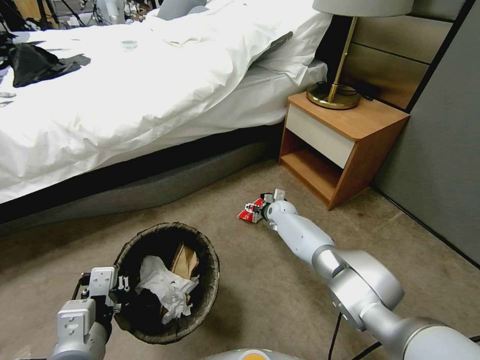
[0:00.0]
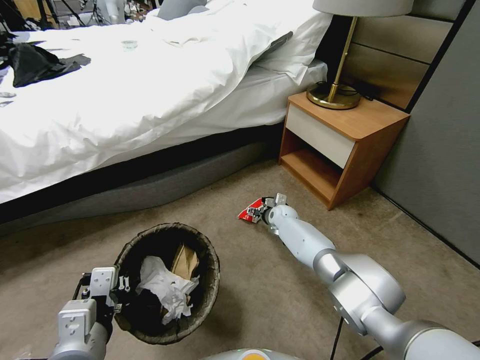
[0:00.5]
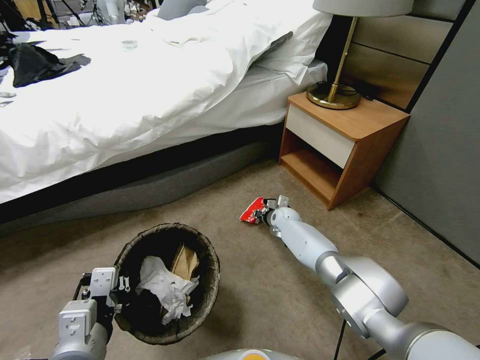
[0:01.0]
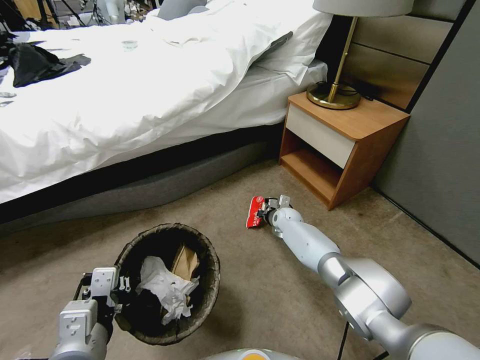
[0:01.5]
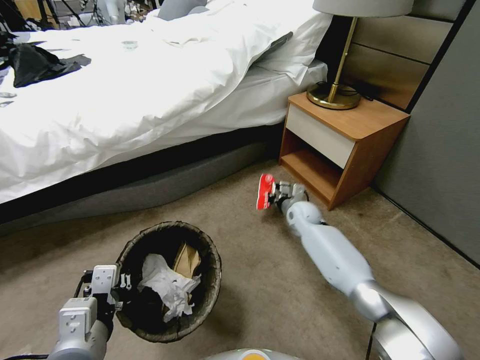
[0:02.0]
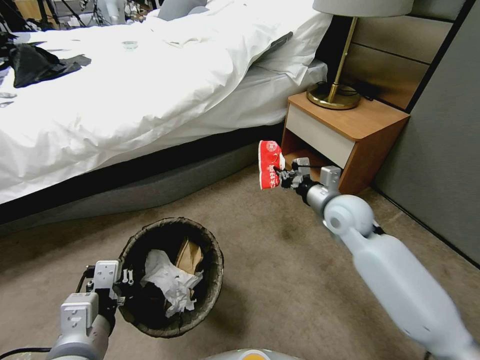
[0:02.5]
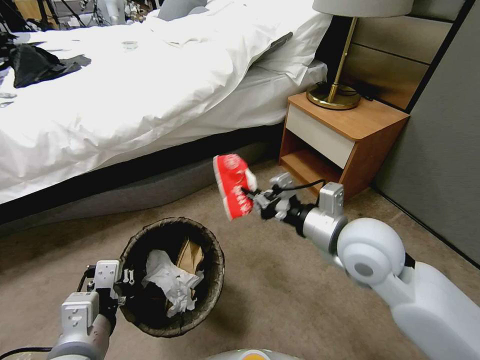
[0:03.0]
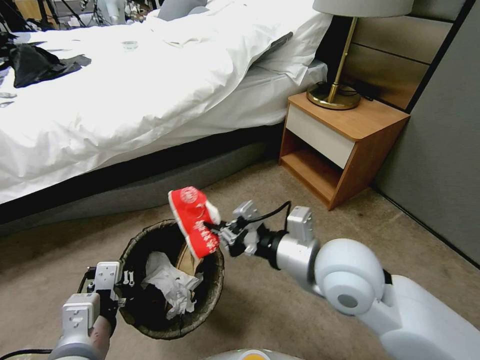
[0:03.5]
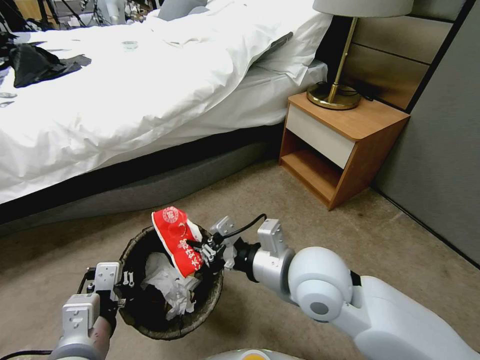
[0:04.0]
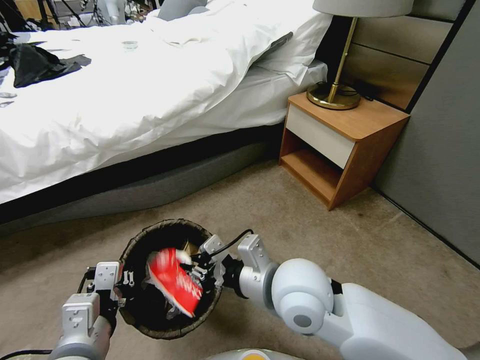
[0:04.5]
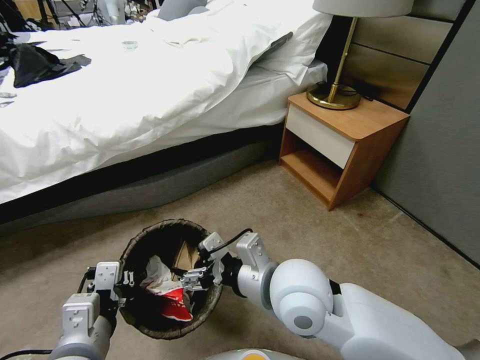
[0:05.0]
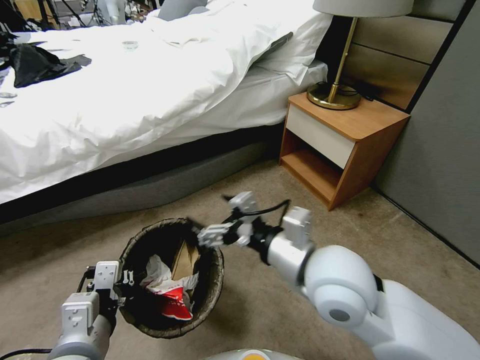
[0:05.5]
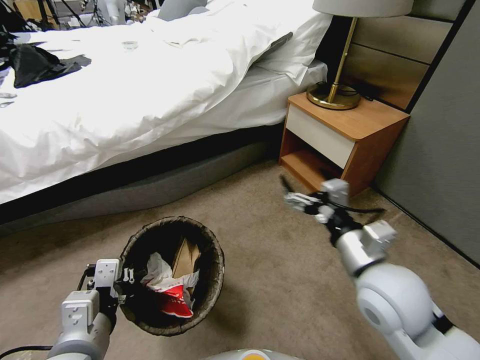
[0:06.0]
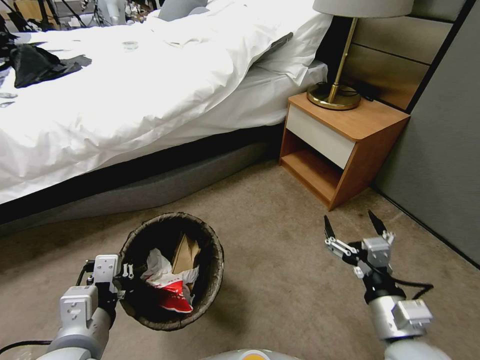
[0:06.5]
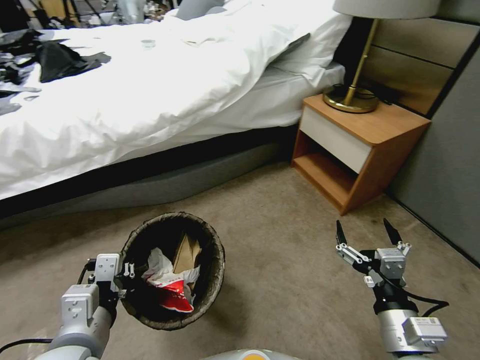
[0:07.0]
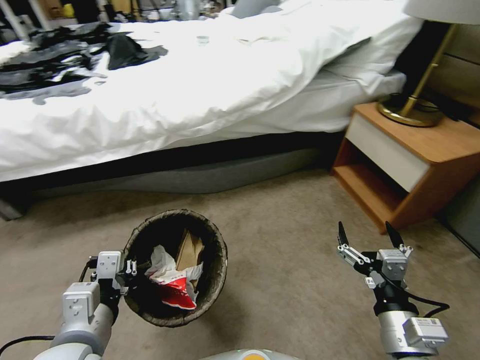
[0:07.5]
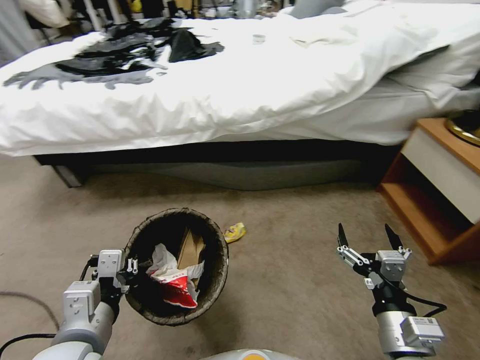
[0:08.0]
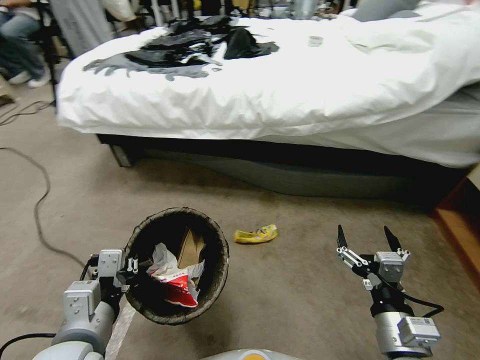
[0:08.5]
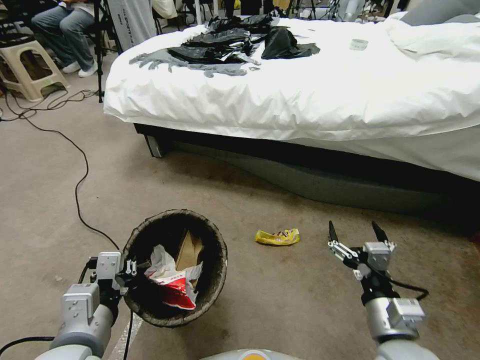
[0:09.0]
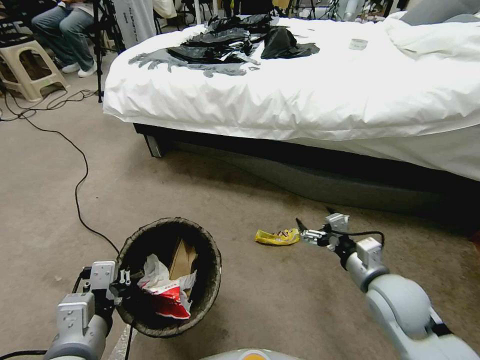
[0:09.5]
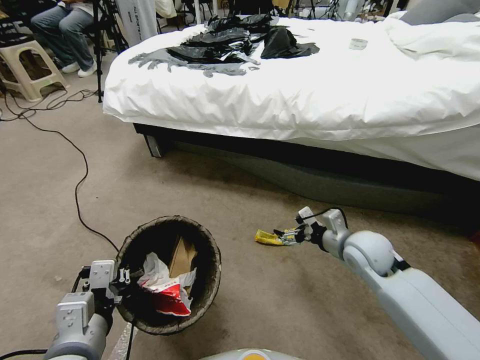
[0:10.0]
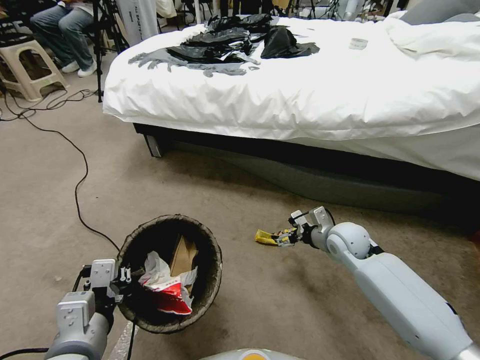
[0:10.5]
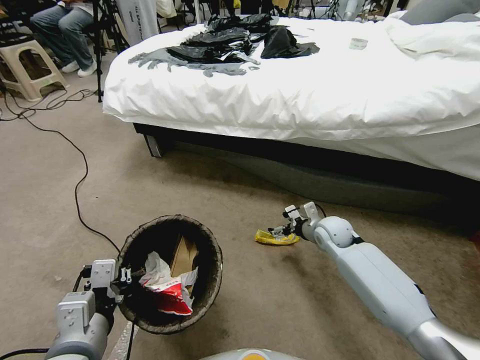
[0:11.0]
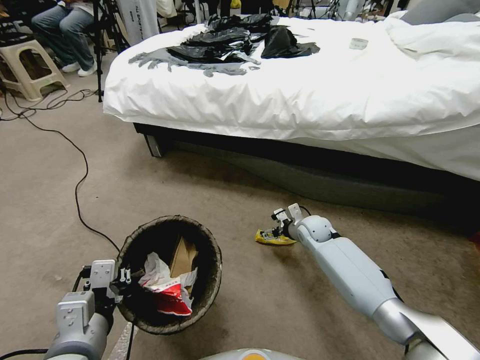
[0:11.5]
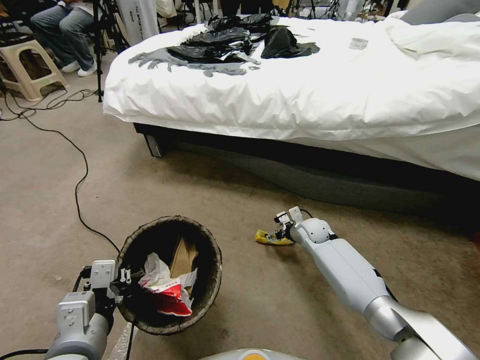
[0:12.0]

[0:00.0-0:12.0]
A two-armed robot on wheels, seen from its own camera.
Task of the whole recording: Pick up the trash bin, then pick up the garbage from the floor and place it into the trash bin.
0:00.0 to 0:02.0: The right gripper travels upward and to the right by approximately 10 cm, and closes up.
0:02.0 to 0:04.0: The right gripper moves backward and upward, about 35 cm.
0:04.0 to 0:06.0: The right gripper moves to the right, some 10 cm, and opens its fingers.
0:06.0 to 0:08.0: The right gripper is displaced backward and downward by roughly 15 cm.
0:08.0 to 0:10.0: The right gripper moves forward, about 20 cm.
0:10.0 to 0:12.0: The right gripper shifts approximately 20 cm downward, forward and to the left.

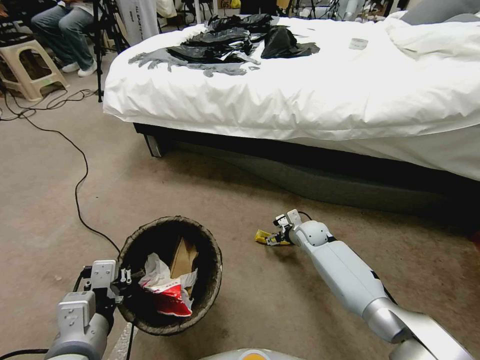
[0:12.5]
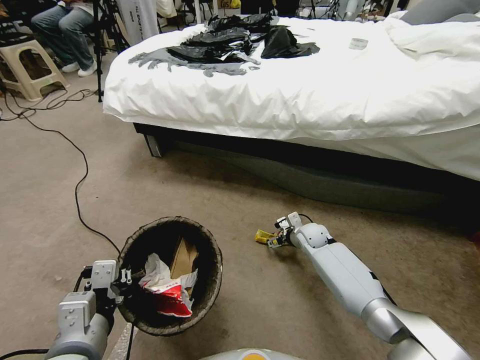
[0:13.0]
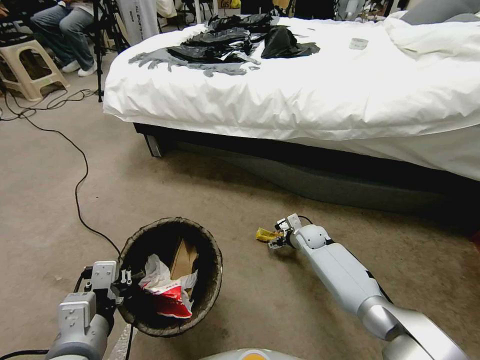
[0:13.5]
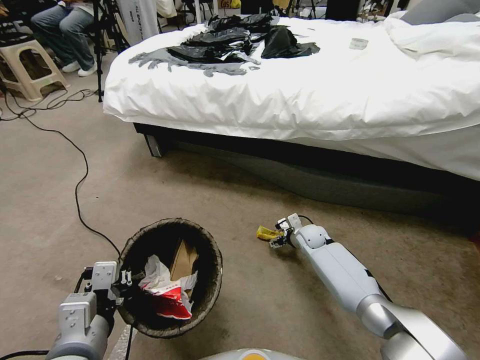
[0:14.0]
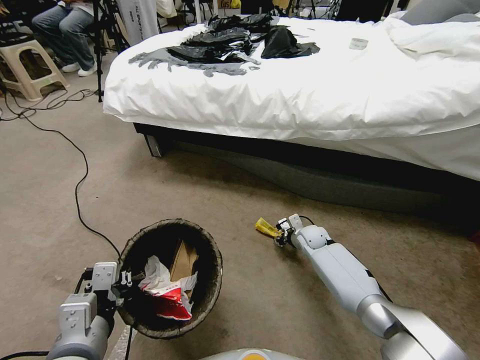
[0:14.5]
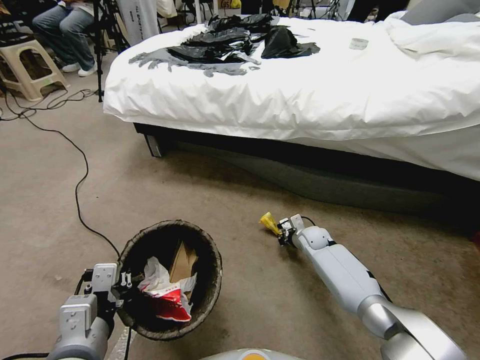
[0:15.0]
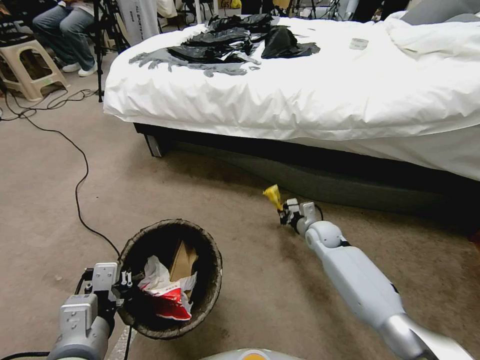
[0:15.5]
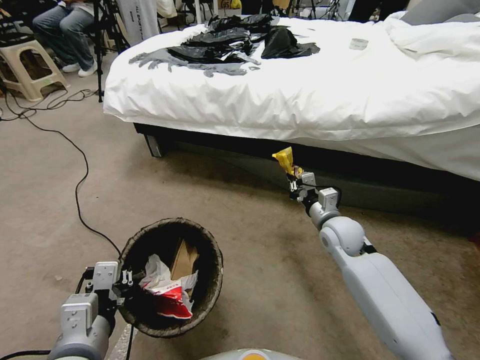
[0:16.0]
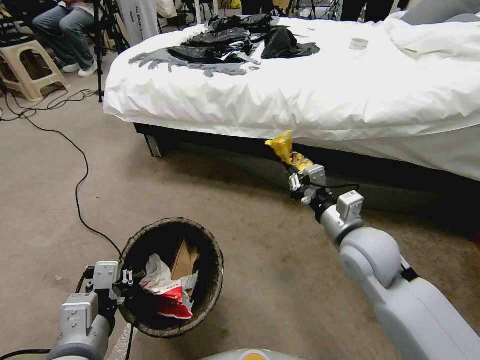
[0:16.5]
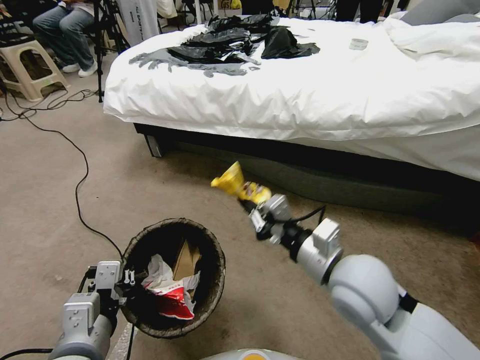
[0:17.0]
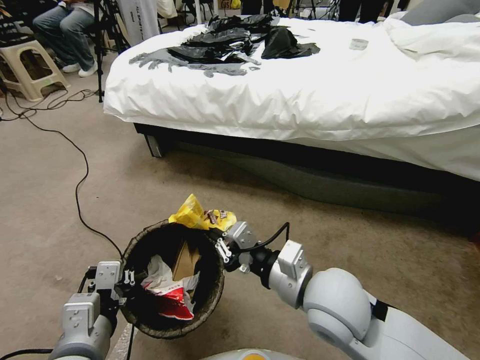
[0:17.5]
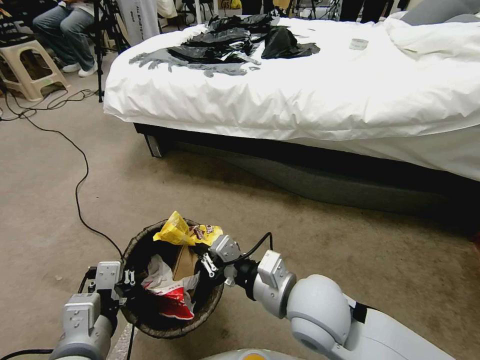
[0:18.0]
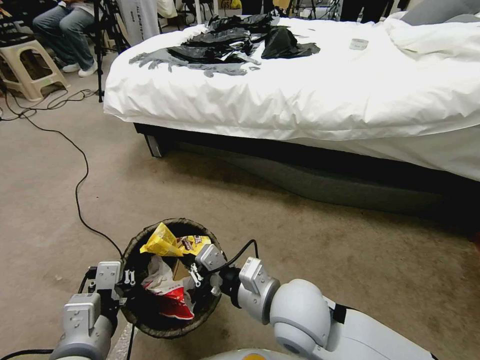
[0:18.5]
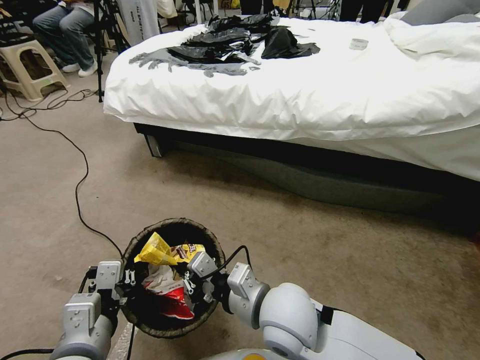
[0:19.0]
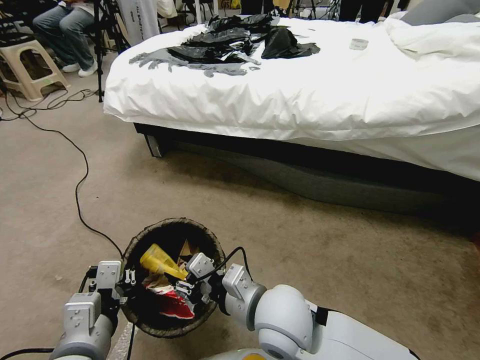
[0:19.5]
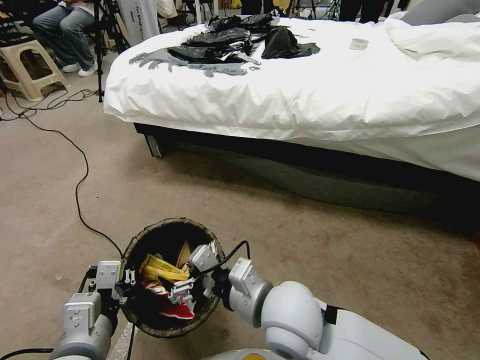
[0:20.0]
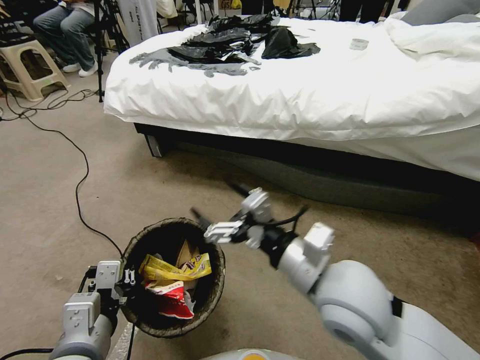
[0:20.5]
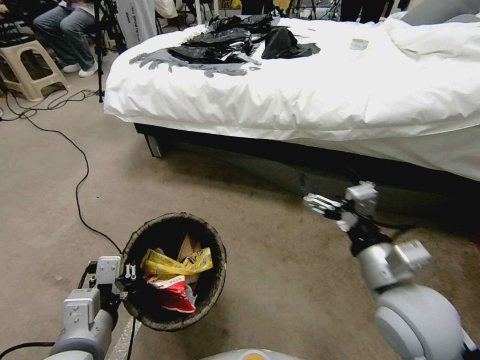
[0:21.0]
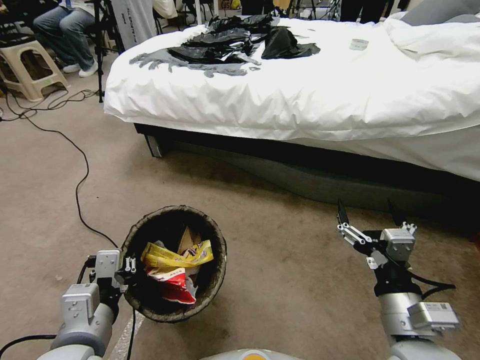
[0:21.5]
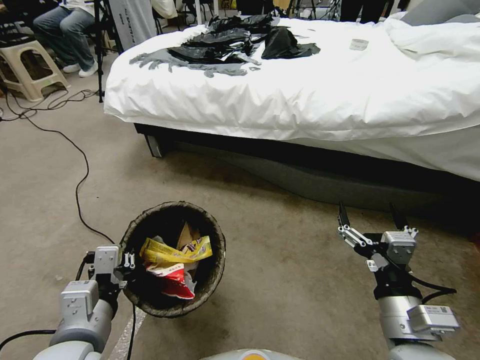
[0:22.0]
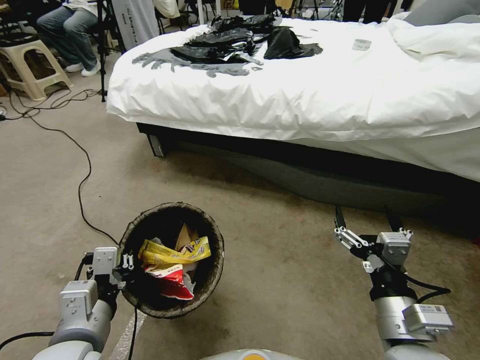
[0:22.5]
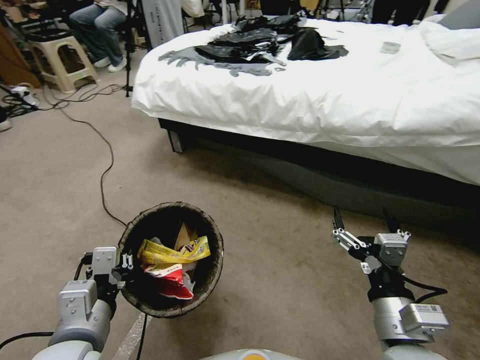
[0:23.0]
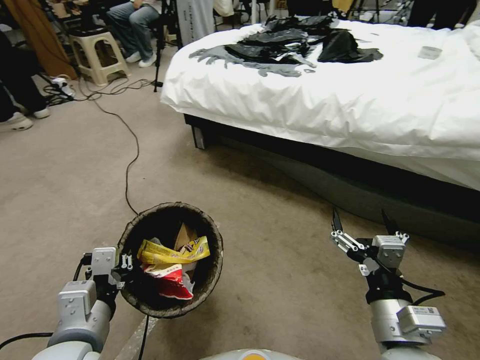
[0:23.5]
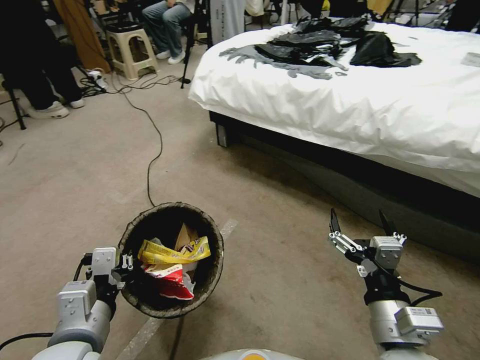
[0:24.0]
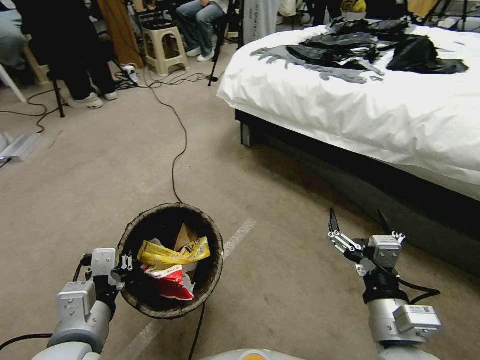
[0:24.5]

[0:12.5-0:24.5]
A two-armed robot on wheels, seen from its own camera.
Task of the whole recording: Pick up the trash bin, then pick up the garbage from the floor and place it into the trash bin.
0:12.5 to 0:14.5: The right gripper closes up.
0:14.5 to 0:16.5: The right gripper is displaced upward and backward by some 30 cm, and closes.
0:16.5 to 0:18.5: The right gripper is displaced to the left and backward by about 15 cm.
0:18.5 to 0:20.5: The right gripper shifts approximately 10 cm upward and to the right, and opens.
0:20.5 to 0:22.5: The right gripper is displaced to the right, backward and downward by roughly 15 cm.

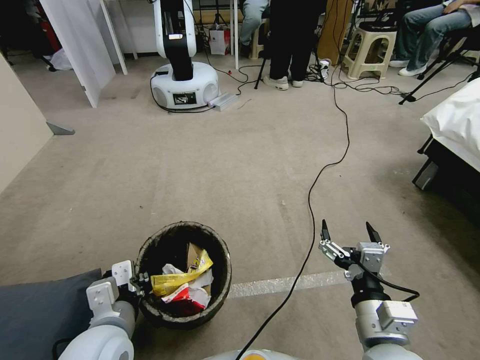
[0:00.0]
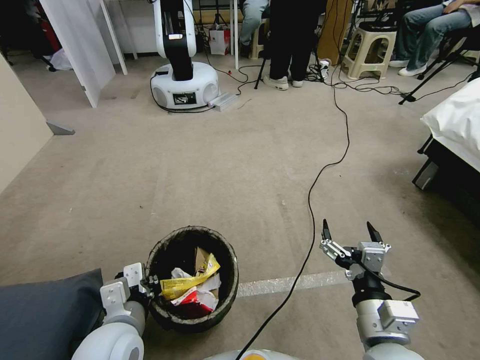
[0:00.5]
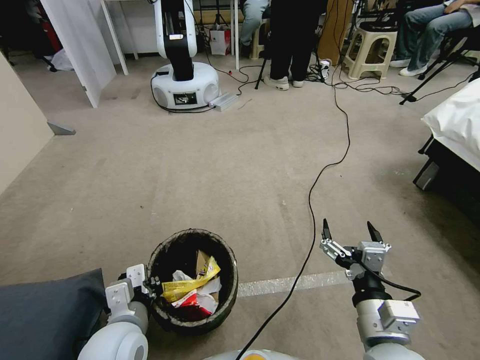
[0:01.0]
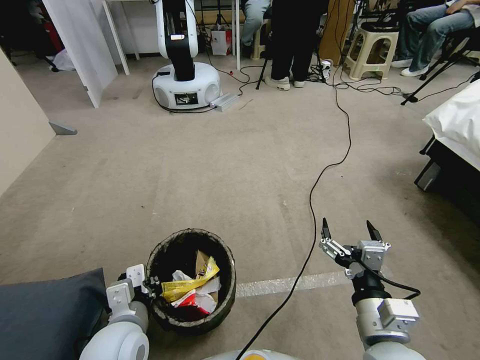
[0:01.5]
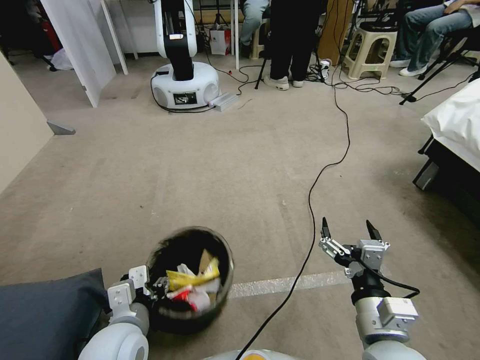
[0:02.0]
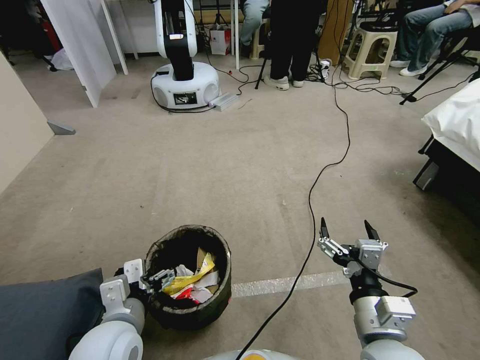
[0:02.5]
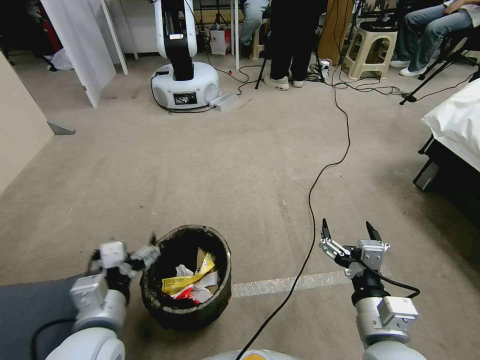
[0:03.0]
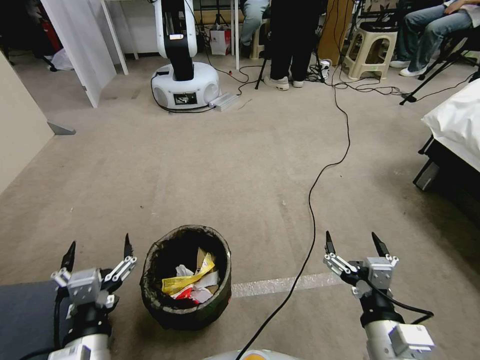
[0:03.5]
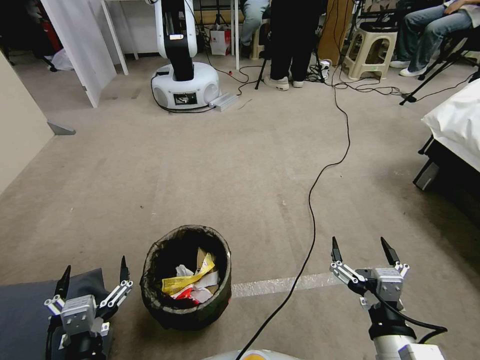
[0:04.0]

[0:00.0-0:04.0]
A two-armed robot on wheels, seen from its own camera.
Task of the whole recording: Pick up the trash bin, then pick up the garbage from the floor and place it into the trash bin.
0:00.0 to 0:02.0: The left gripper opens up.
0:02.0 to 0:04.0: The left gripper shifts roughly 10 cm backward, and opens its fingers. The right gripper is displaced backward by some 5 cm.
